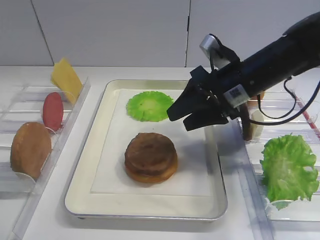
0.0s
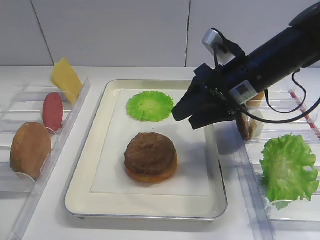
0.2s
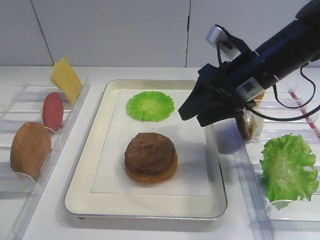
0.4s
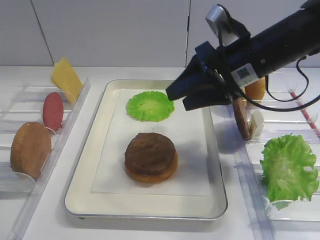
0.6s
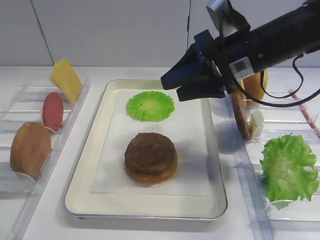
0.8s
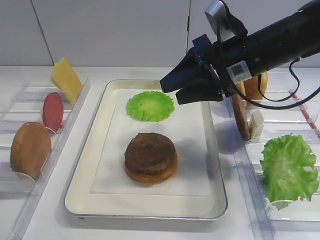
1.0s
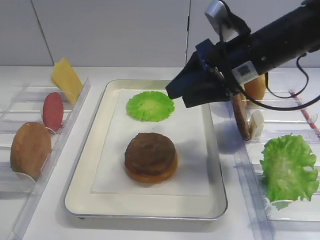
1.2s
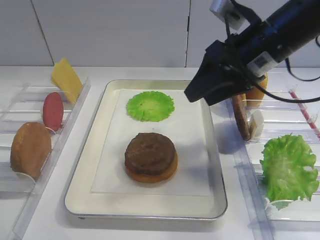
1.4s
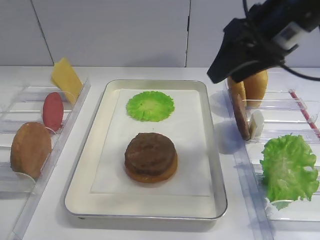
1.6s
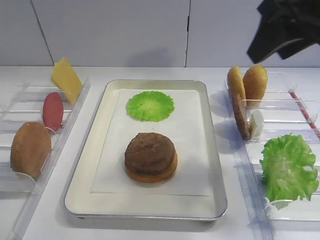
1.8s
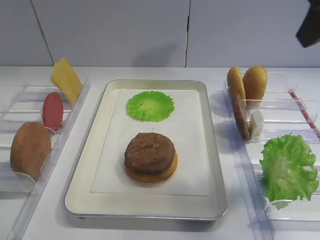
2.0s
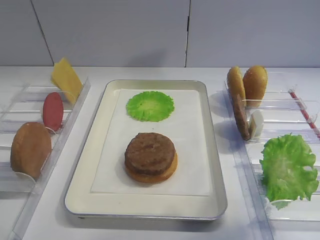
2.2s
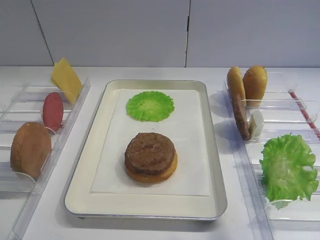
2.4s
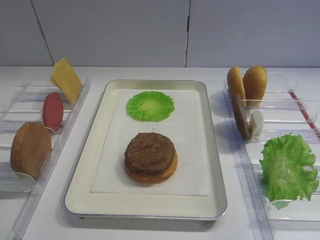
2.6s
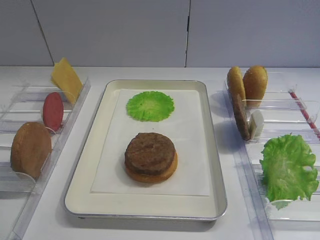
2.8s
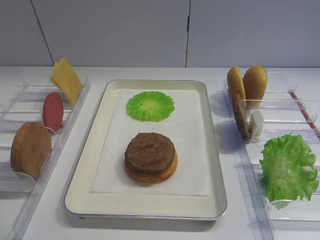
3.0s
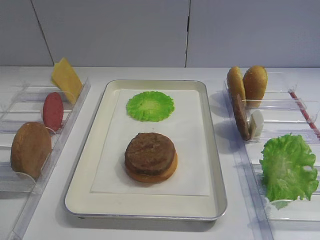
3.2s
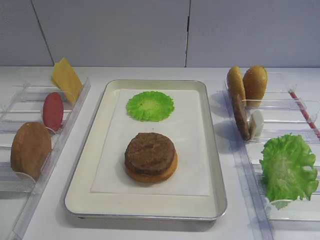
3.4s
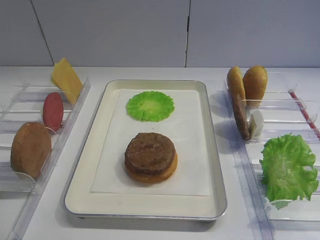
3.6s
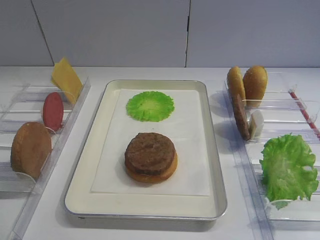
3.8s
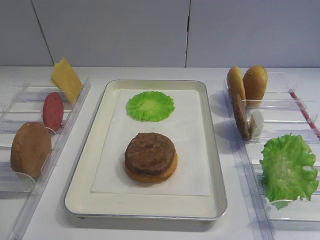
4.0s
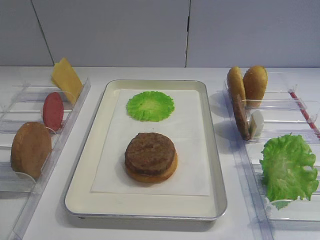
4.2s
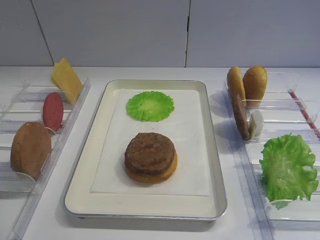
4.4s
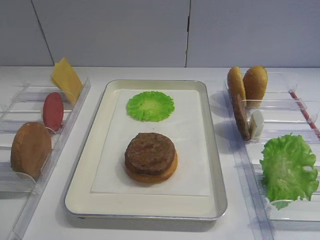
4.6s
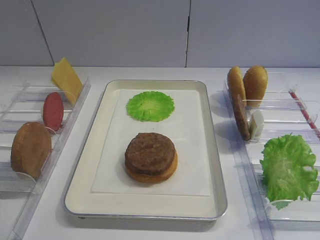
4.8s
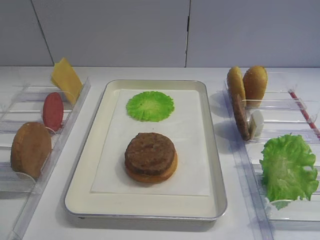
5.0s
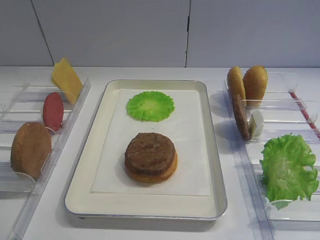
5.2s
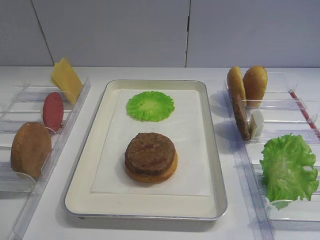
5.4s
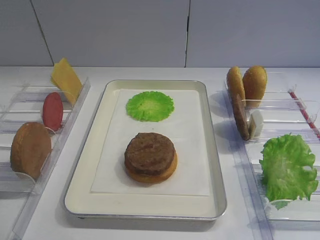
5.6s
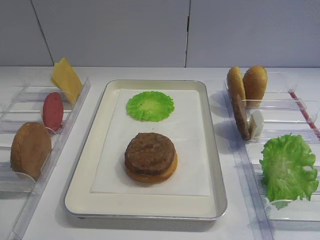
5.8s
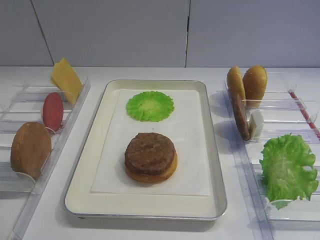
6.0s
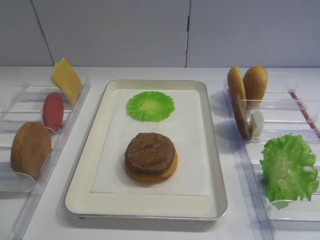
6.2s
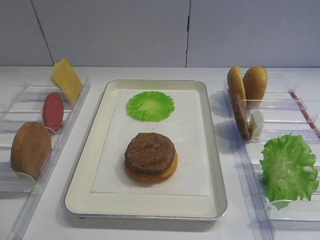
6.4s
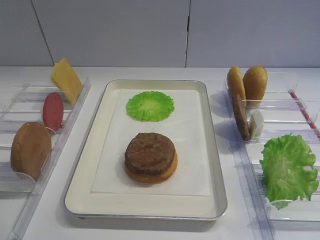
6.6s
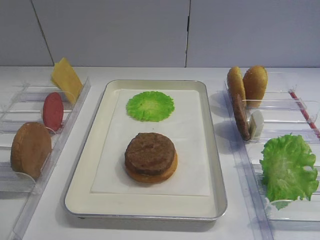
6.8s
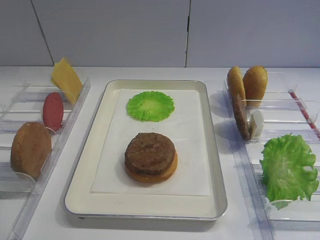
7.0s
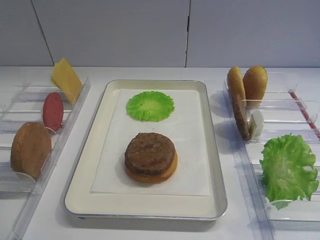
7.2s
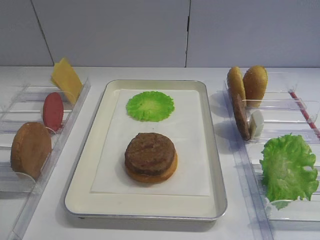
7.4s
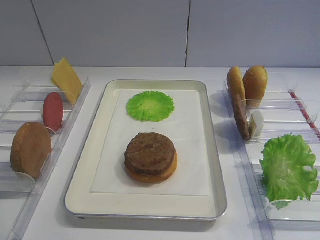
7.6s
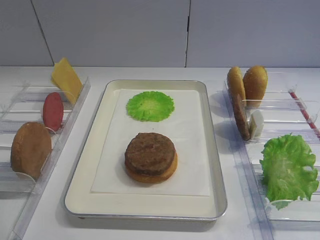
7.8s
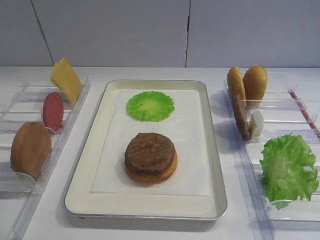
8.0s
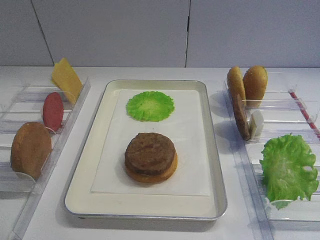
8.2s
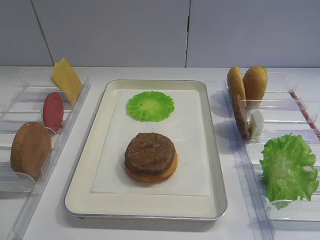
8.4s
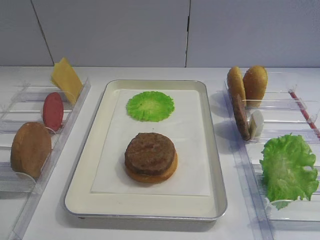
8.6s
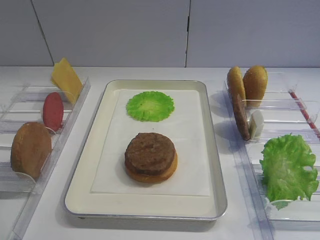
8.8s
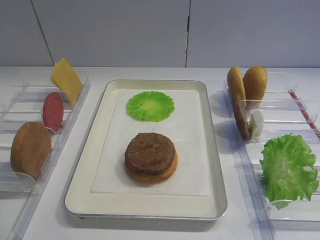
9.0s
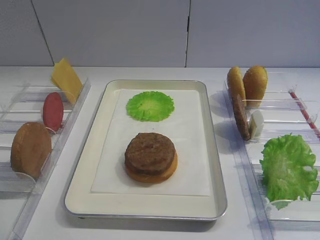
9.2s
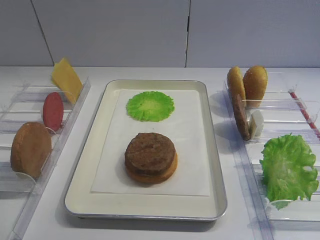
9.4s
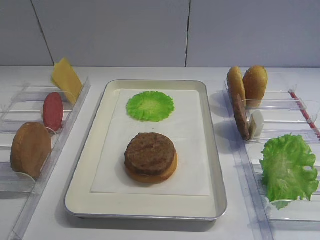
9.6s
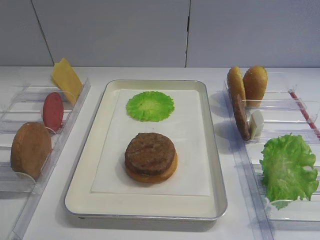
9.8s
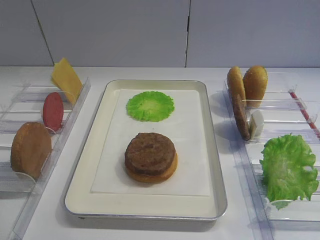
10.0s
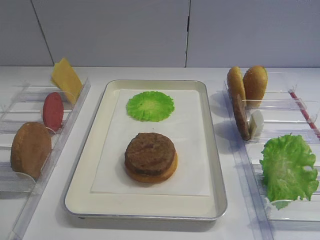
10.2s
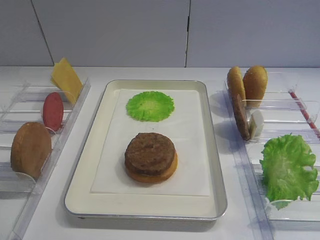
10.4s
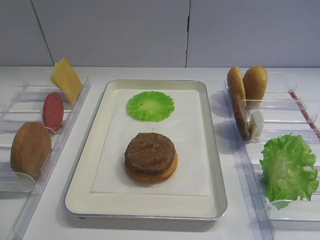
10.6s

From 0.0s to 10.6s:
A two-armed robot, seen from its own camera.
From 0.0s to 1.6s: The right gripper travels upward by some 10 cm.
From 1.6s to 3.0s: The right gripper is displaced backward by about 25 cm.
From 6.0s to 7.6s: Neither gripper changes place.
From 9.0s to 10.6s: Neither gripper changes place.

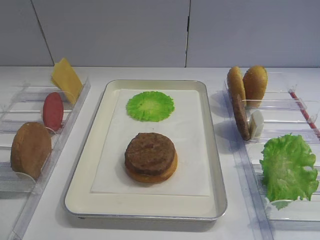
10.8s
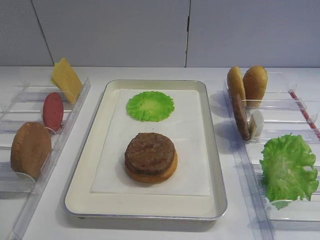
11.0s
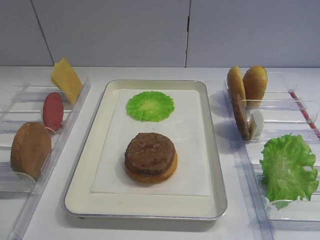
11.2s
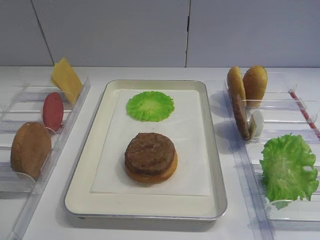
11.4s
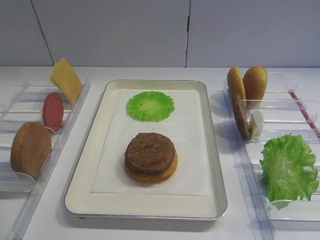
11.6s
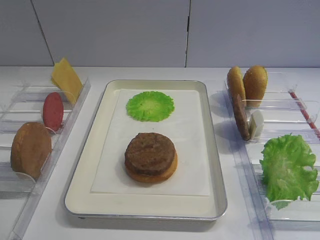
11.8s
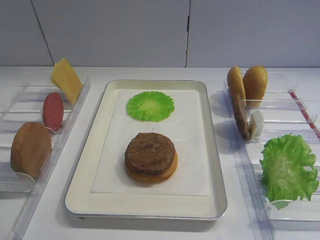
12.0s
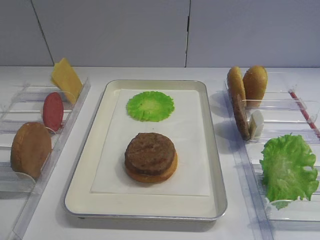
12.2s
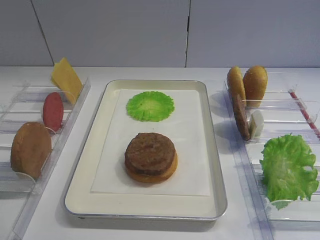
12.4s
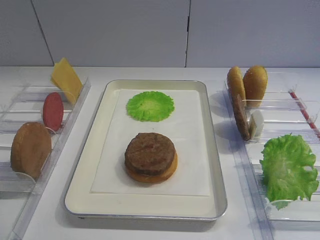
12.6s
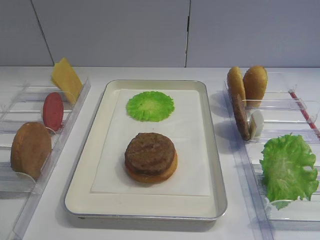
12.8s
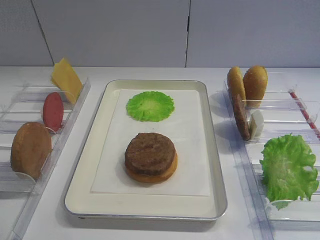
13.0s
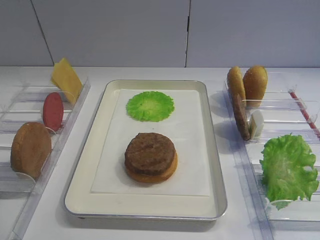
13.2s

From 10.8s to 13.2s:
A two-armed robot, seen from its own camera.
From 10.8s to 13.2s: Both grippers stay put.
